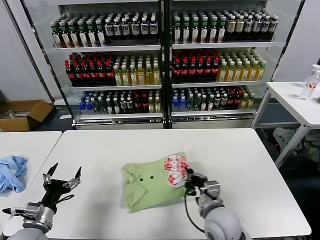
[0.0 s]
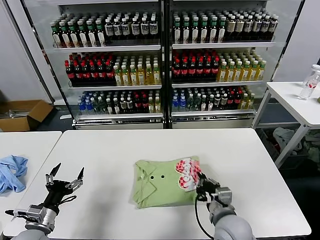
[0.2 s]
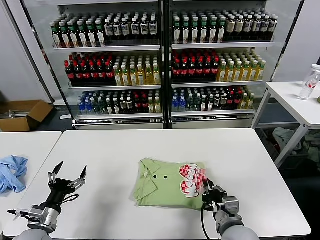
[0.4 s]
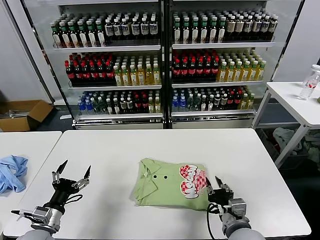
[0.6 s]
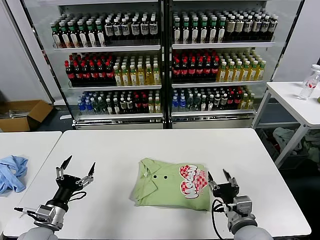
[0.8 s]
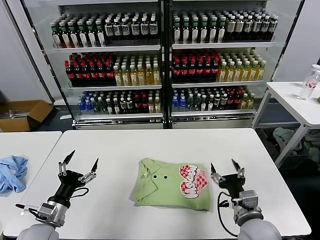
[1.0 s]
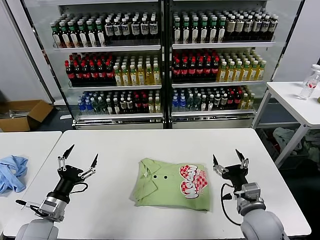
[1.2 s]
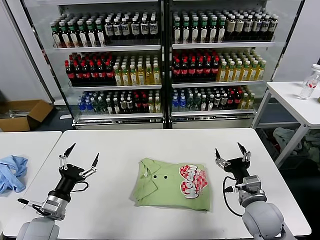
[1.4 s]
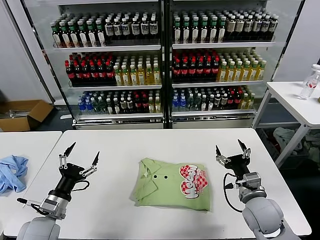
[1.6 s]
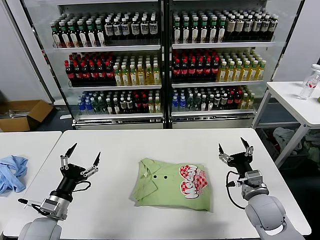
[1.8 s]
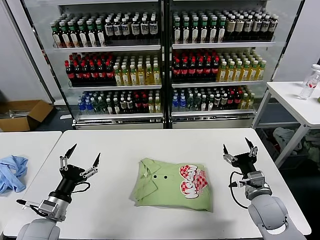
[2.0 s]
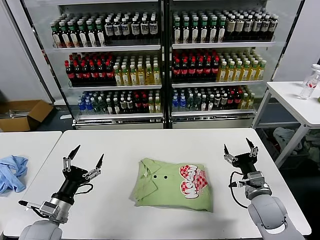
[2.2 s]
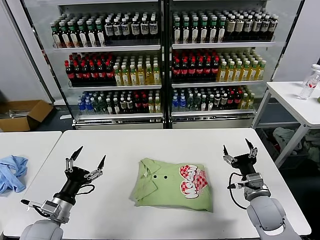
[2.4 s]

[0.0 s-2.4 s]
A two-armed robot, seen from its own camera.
Task of the whole recording: fold and organize the clothes.
0.0 to 1.2 s: The right gripper moves to the right, roughly 10 cm, and opens.
1.2 to 2.4 s: The right gripper travels forward and to the right by about 10 cm.
